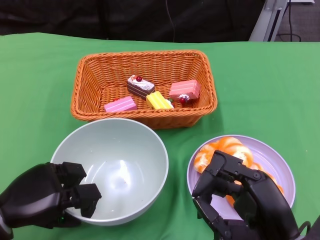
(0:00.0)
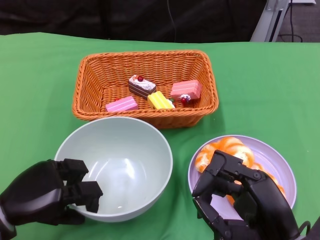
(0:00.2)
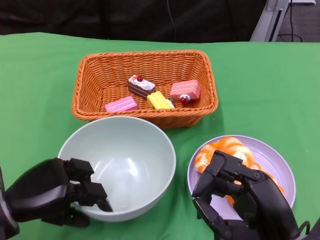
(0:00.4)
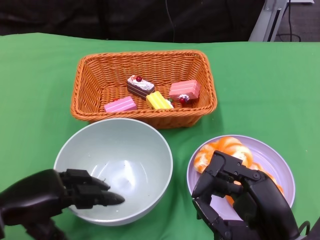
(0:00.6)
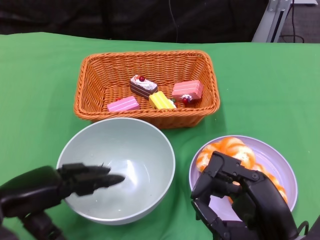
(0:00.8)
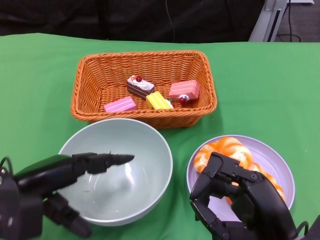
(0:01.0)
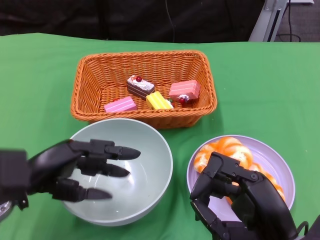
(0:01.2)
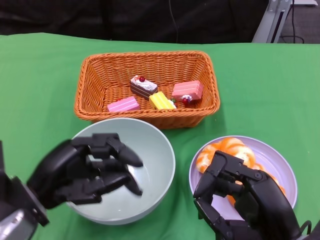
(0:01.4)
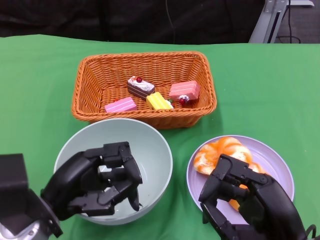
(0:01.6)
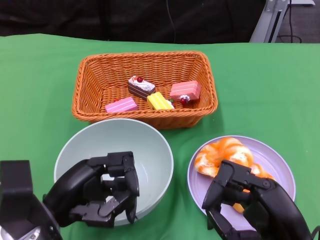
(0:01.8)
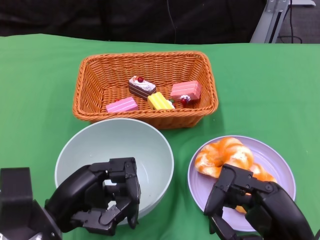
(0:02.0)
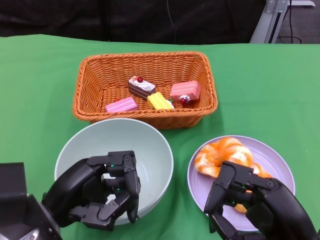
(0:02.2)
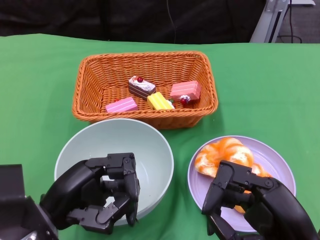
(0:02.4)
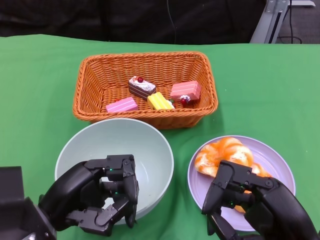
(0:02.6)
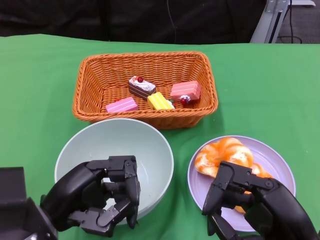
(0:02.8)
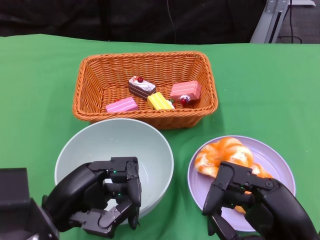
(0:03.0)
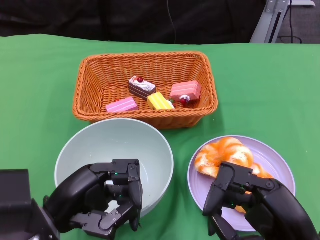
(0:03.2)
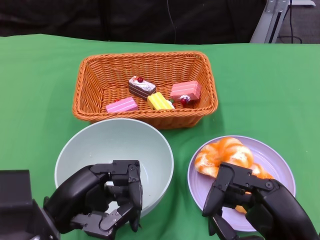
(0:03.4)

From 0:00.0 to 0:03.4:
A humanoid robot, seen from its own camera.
From 0:00.0 to 0:01.6: The left hand heads to the right, covering approximately 5 cm.
From 0:01.6 to 0:03.4: The hands stay close to where they were, moving slightly.

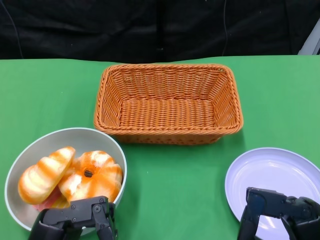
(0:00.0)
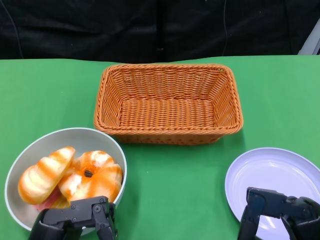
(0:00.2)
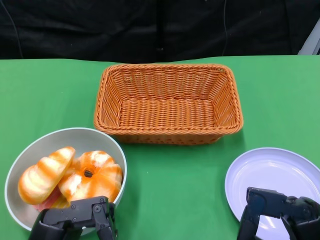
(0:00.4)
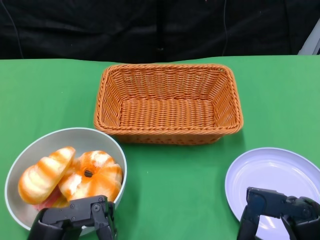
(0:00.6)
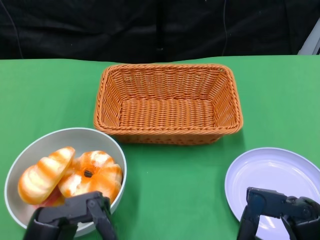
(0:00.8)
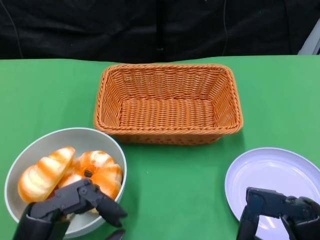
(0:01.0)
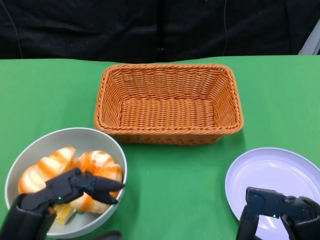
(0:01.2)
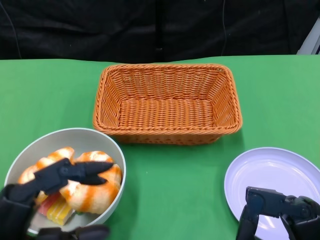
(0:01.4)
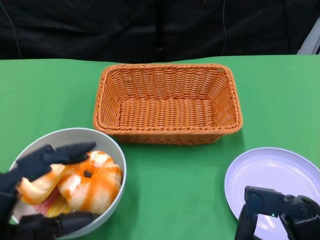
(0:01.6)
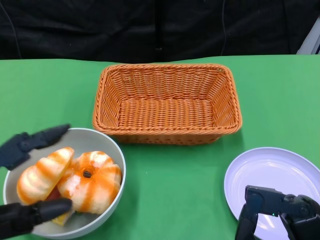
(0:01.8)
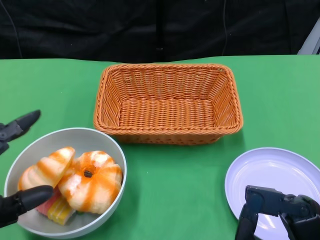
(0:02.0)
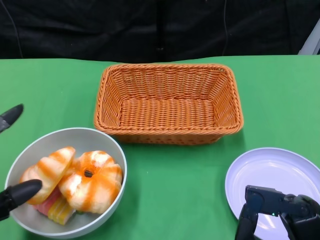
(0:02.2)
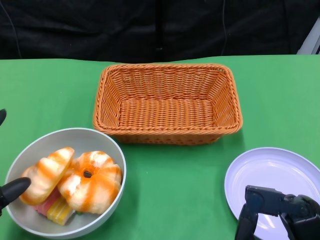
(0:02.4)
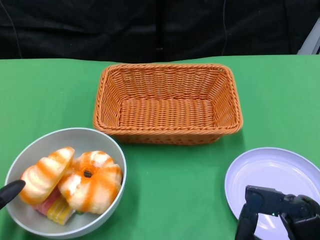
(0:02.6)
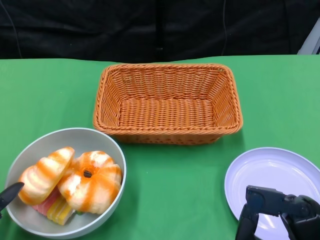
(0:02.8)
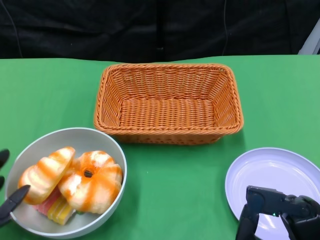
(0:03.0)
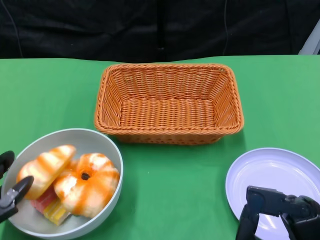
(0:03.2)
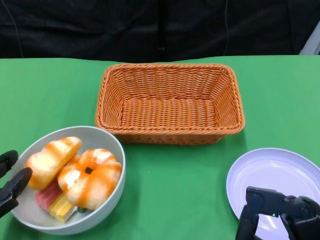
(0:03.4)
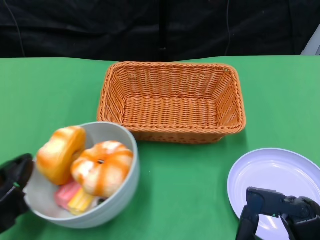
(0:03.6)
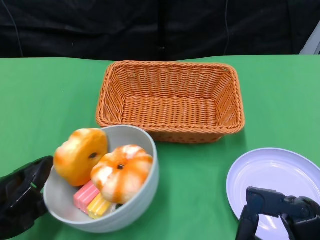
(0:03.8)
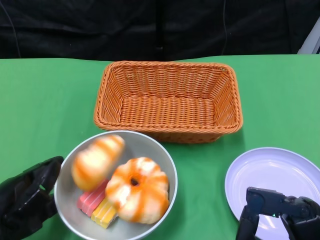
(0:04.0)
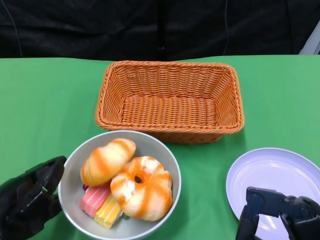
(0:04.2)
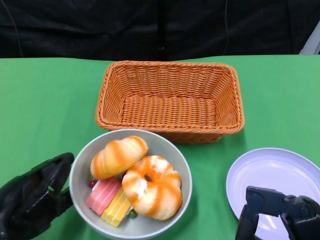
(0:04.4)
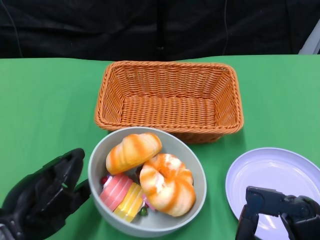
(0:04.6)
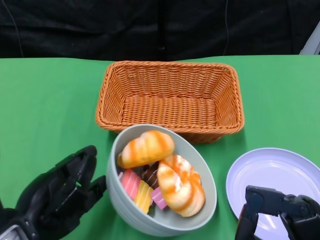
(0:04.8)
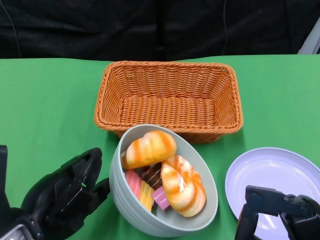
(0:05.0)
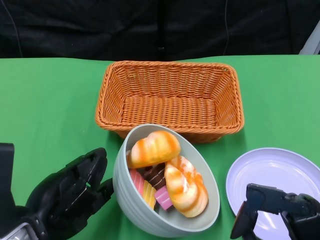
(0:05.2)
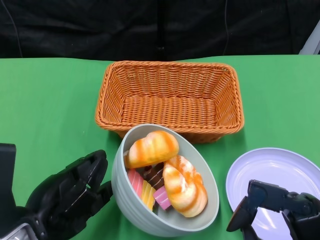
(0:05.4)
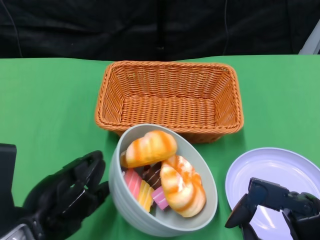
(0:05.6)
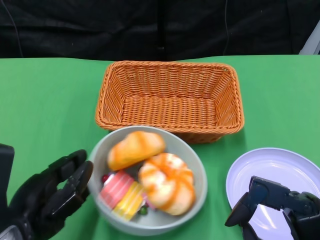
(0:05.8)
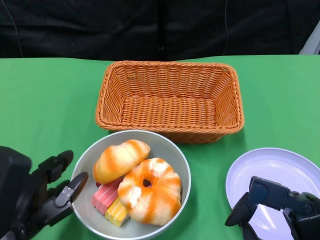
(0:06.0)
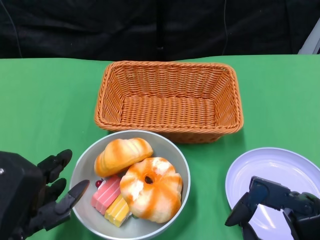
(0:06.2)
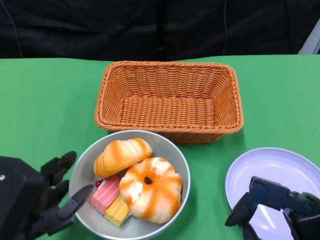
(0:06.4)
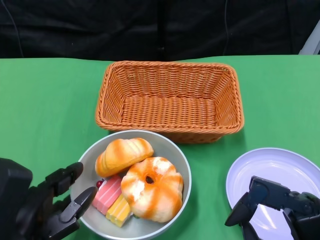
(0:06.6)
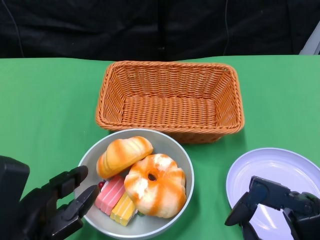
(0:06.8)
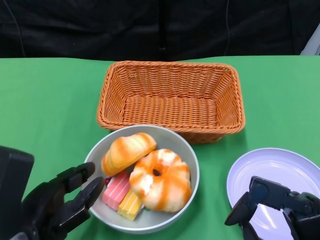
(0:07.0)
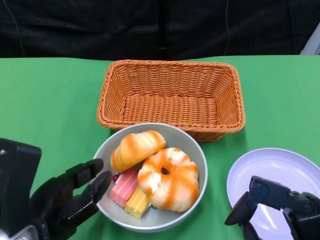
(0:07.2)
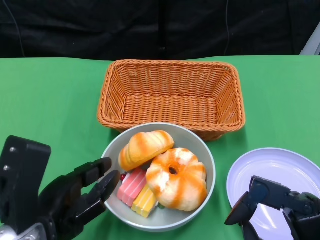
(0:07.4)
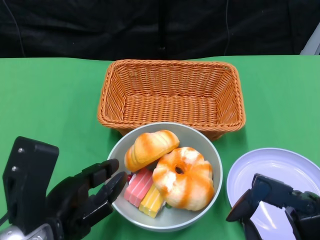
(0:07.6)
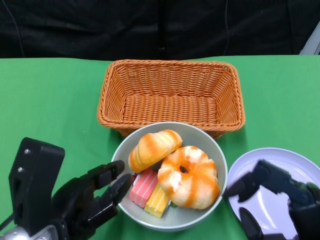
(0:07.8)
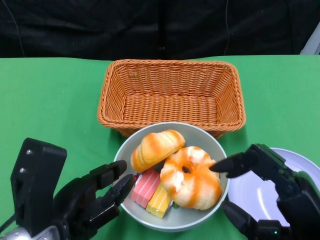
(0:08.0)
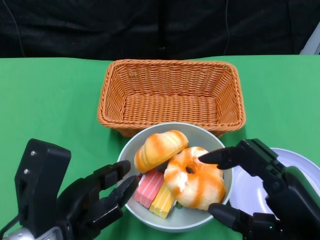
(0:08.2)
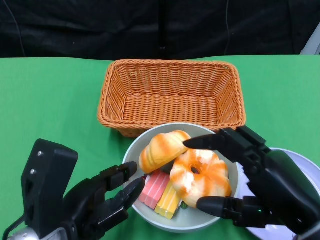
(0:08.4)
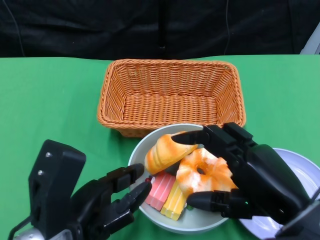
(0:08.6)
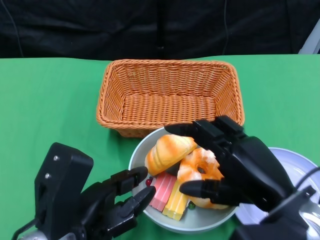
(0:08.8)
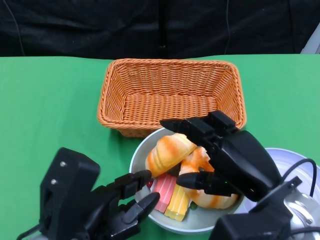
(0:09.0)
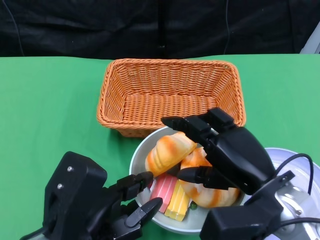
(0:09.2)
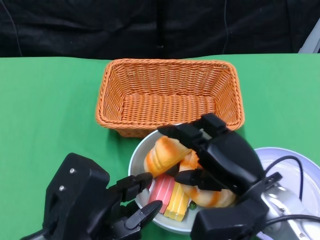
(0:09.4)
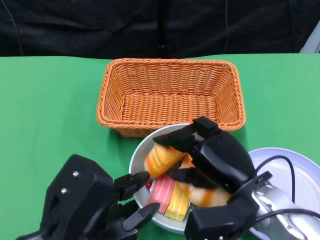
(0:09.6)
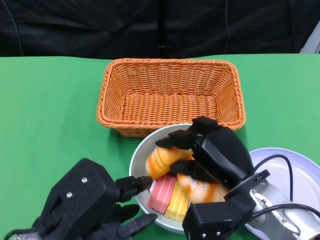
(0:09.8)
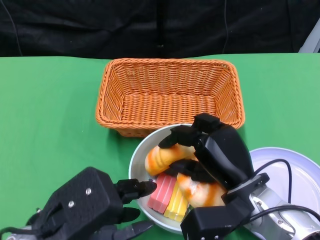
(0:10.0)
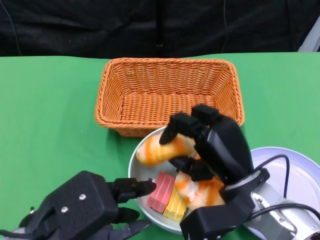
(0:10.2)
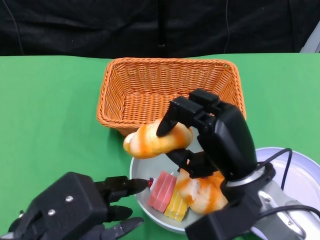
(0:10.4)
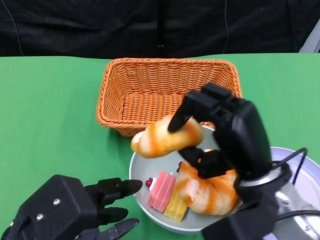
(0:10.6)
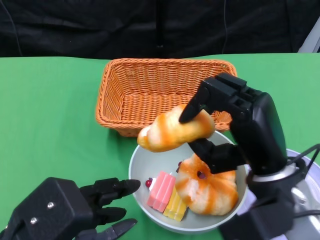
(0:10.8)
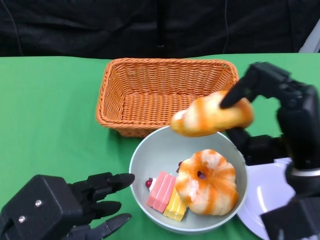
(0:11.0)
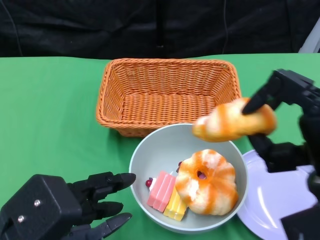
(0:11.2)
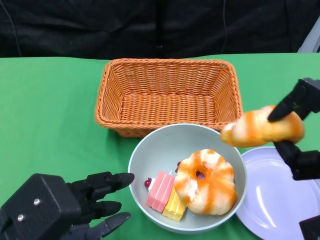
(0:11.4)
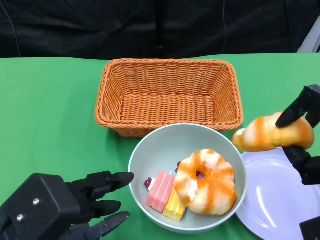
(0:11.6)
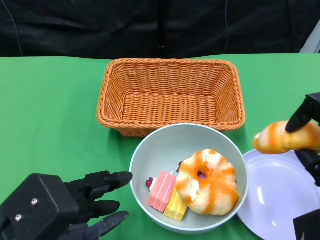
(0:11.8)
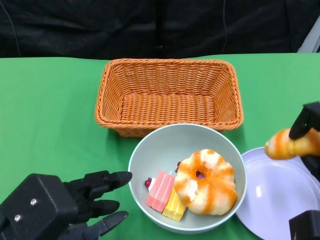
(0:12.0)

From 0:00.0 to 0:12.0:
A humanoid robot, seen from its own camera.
Step, from 0:00.0 to 0:08.0: Push the bowl to the center of the table using the left gripper.
From 0:01.6 to 0:03.0: The left hand shifts about 5 cm to the left.
From 0:07.6 to 0:09.0: The right hand heads forward, covering some 10 cm.
From 0:10.4 to 0:12.0: The right hand heads to the right, covering approximately 15 cm.

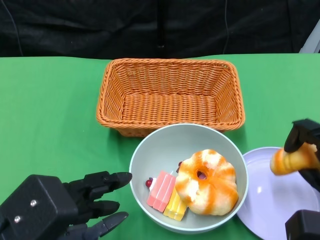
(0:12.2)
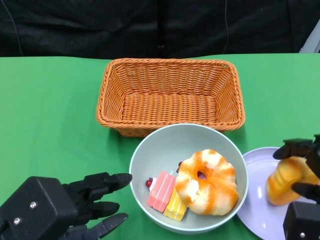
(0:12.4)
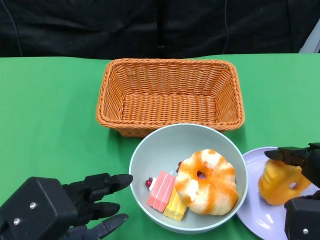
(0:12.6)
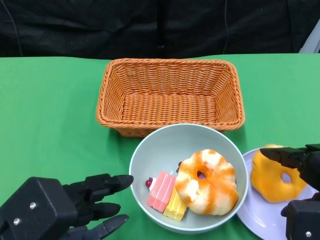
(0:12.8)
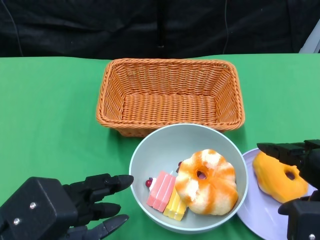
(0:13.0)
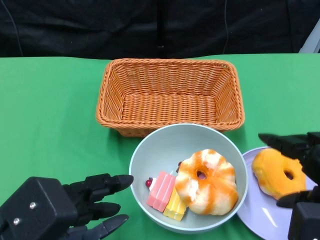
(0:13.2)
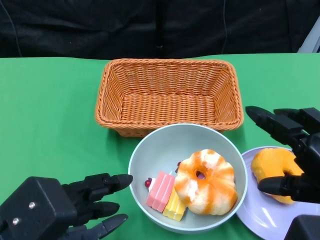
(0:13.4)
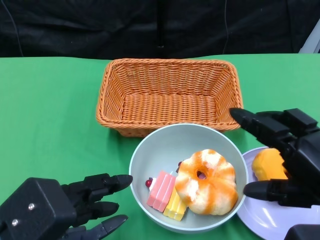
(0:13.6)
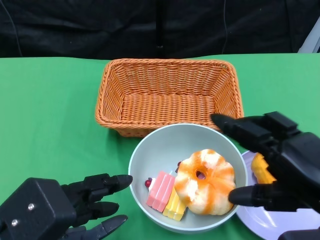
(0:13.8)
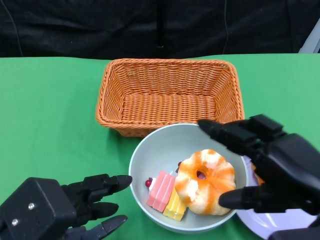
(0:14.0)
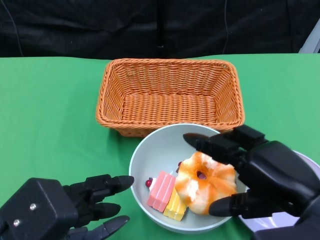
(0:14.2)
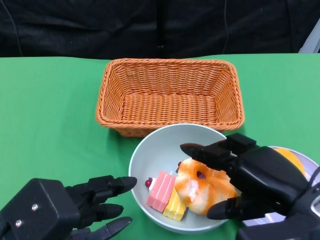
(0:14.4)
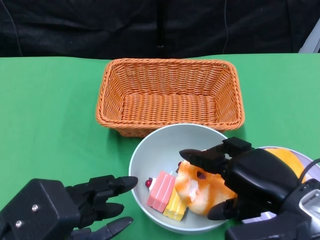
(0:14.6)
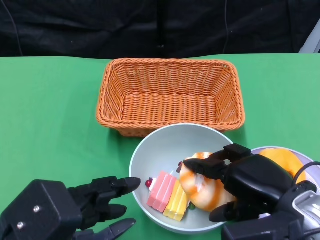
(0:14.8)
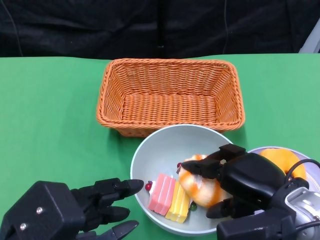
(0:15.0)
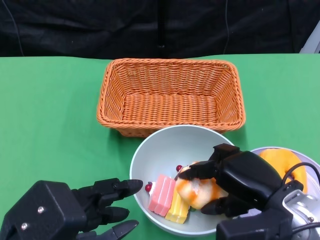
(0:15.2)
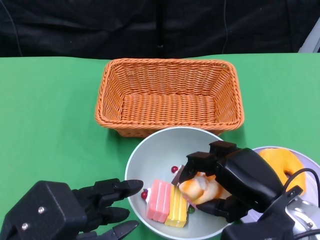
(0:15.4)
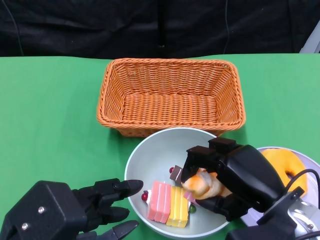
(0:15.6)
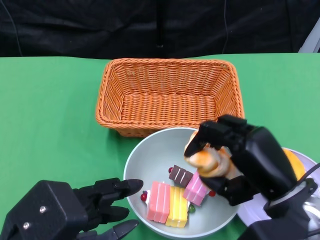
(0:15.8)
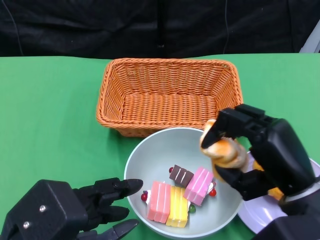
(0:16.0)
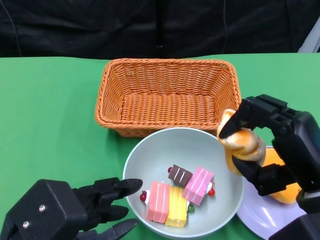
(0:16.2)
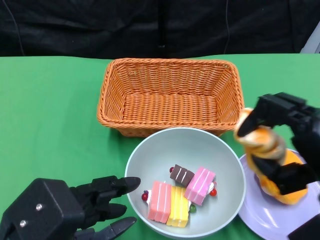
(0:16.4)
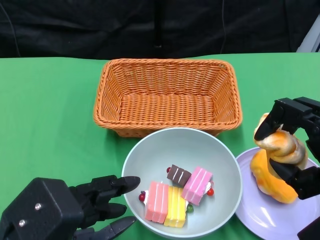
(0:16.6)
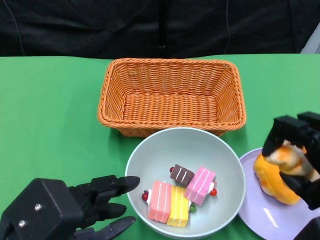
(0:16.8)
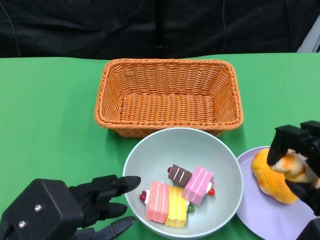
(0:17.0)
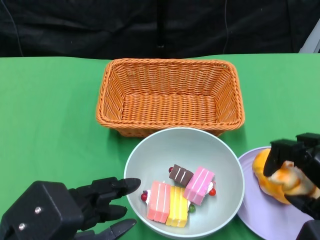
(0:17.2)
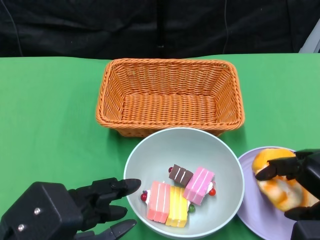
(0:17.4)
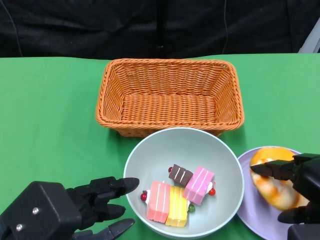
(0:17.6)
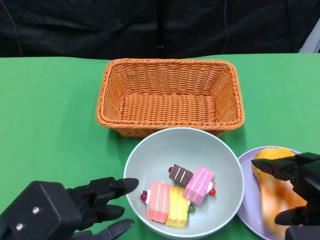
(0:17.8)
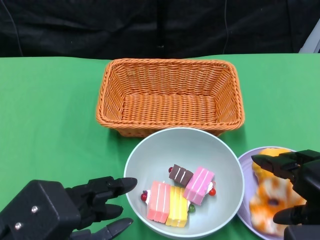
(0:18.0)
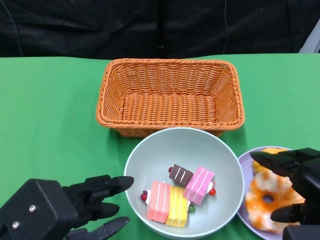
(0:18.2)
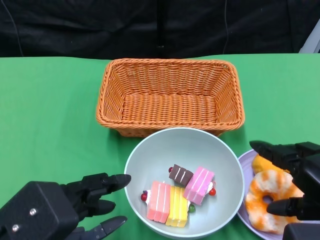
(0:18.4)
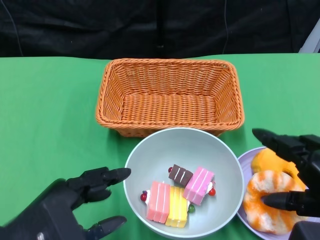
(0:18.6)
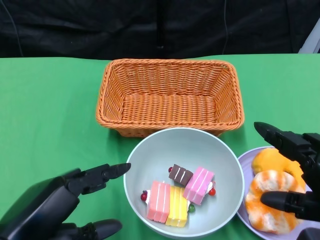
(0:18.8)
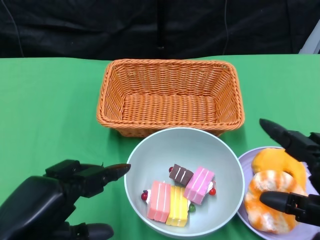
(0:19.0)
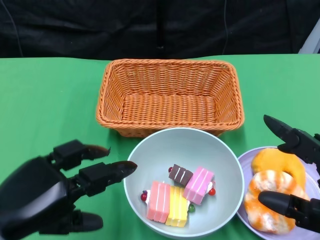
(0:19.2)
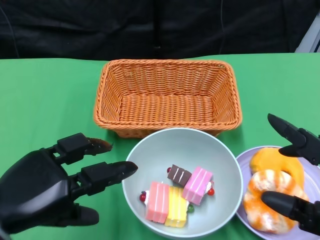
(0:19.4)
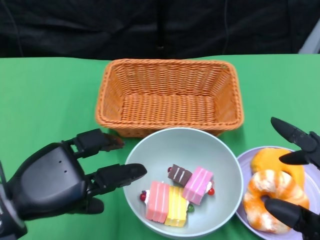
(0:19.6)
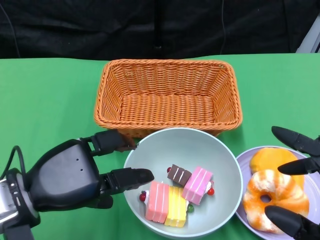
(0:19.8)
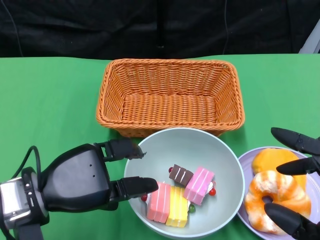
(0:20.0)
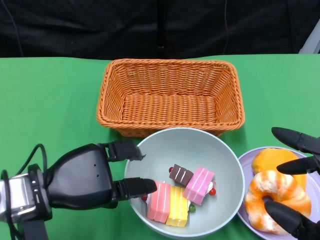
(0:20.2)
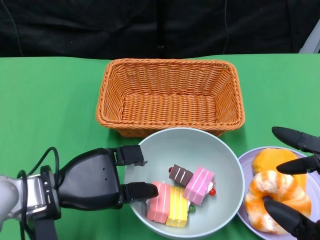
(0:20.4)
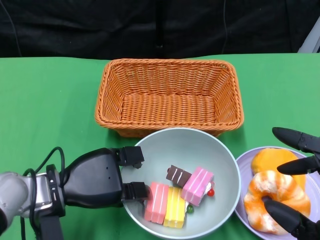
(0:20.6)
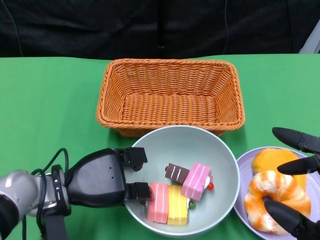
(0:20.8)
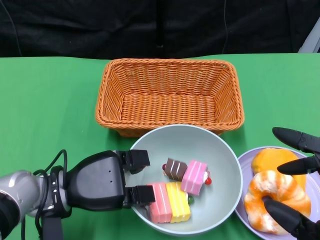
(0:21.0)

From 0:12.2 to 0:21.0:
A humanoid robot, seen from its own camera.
Step, from 0:12.2 to 0:18.2: Pick up the bread with the right gripper and place it on the plate.
Step, from 0:18.4 to 0:20.8: Grasp the bowl with the left gripper.
From 0:12.2 to 0:13.6: The right hand moves upward, about 10 cm.
From 0:13.6 to 0:15.2: The right hand shifts approximately 10 cm downward, to the left and forward.
From 0:15.2 to 0:16.6: The right hand shifts roughly 5 cm to the right.
From 0:18.0 to 0:19.6: The right hand heads backward, covering about 10 cm. The left hand moves forward, about 5 cm.
From 0:19.6 to 0:21.0: The left hand shifts about 10 cm downward, forward and to the right.
